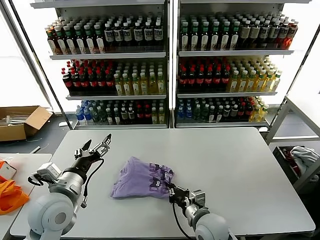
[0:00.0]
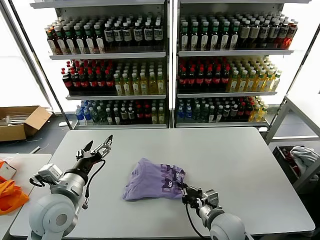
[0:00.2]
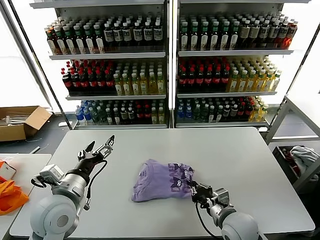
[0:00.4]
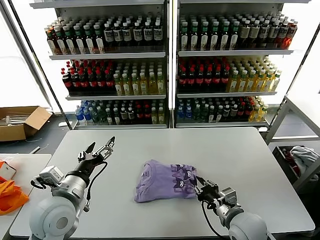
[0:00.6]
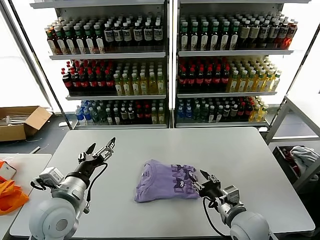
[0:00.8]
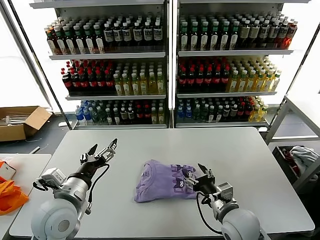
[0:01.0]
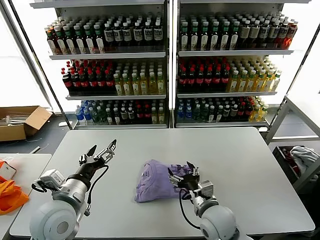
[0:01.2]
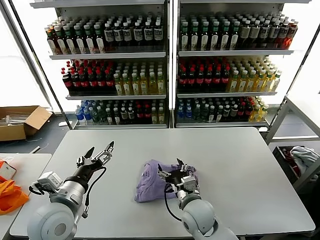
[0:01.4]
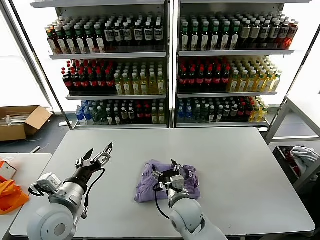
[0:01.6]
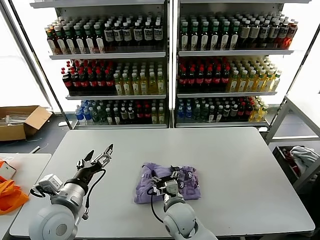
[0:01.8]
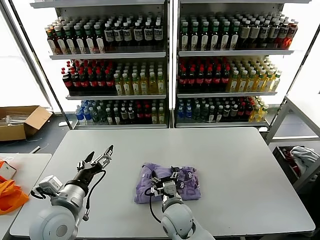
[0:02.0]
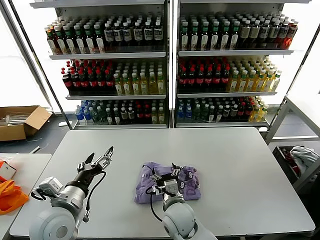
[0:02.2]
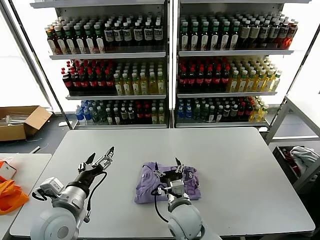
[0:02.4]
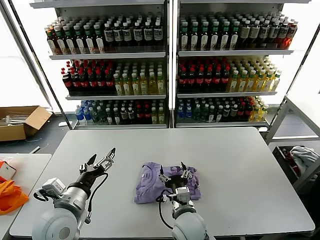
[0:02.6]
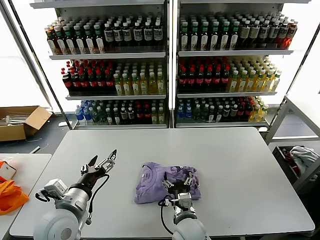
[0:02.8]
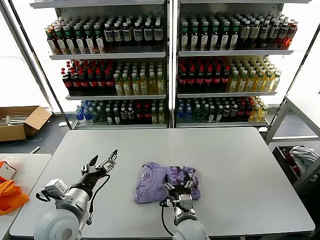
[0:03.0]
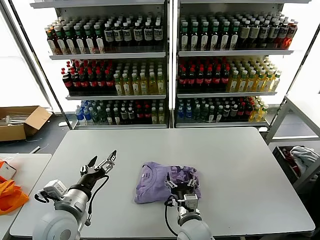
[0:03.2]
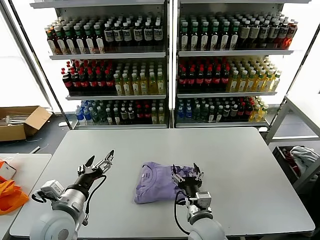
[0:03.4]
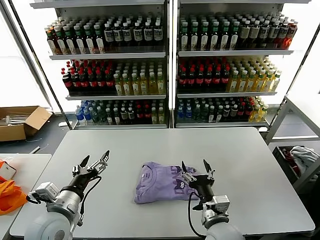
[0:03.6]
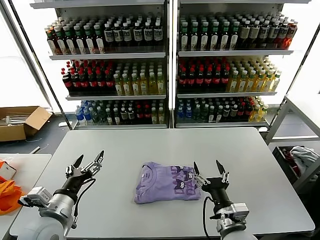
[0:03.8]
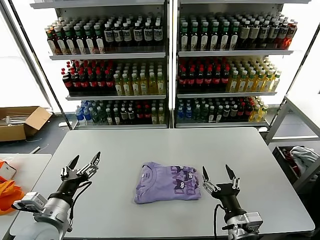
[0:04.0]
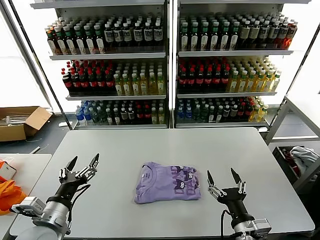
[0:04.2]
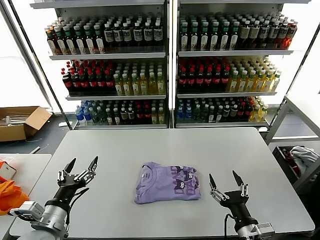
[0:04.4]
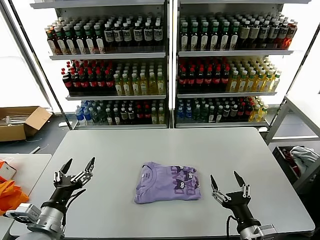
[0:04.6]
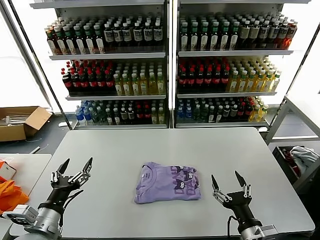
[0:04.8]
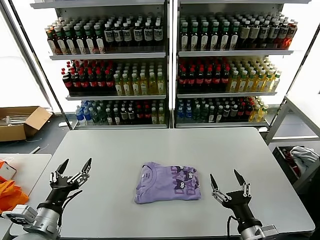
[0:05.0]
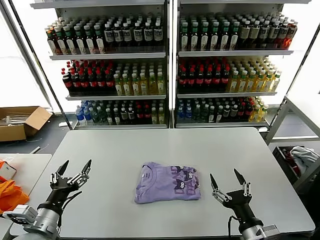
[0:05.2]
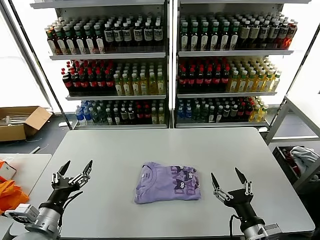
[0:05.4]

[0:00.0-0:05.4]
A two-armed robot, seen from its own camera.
Task of the whole recording: fold and organize the clothes.
Step, 0:00.0 to 0:03.2: Drag the clothes to the center of the table.
0:00.0 to 0:01.4: The right gripper goes to the right and returns, approximately 10 cm each way, and opens its fingers.
0:01.4 to 0:02.8: The right gripper moves some 5 cm.
0:02.8 to 0:04.0: The right gripper heads to the right, backward and upward, covering about 15 cm.
0:04.0 to 0:05.4: The right gripper moves to the right, approximately 5 cm, while the left gripper moves about 5 cm.
